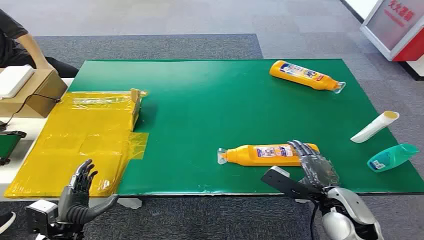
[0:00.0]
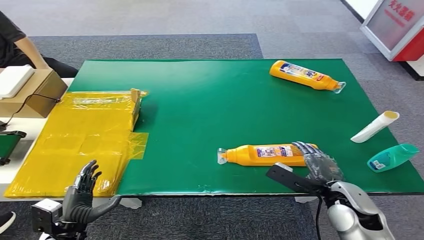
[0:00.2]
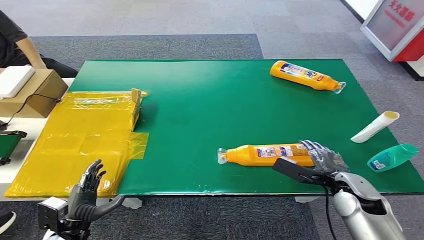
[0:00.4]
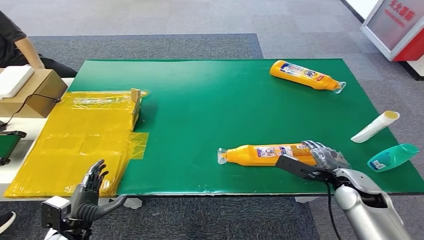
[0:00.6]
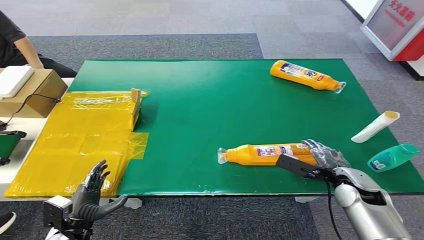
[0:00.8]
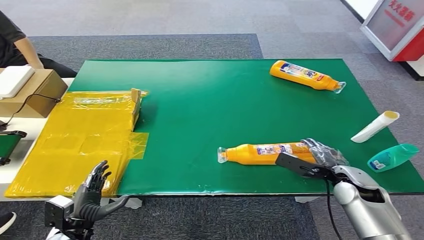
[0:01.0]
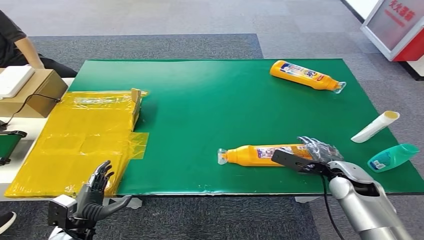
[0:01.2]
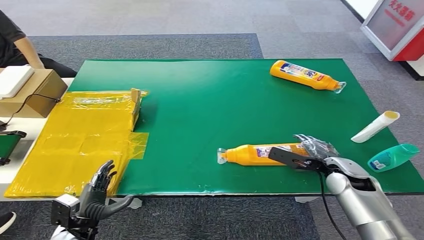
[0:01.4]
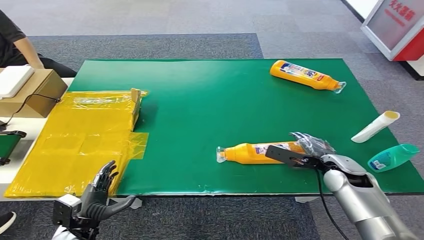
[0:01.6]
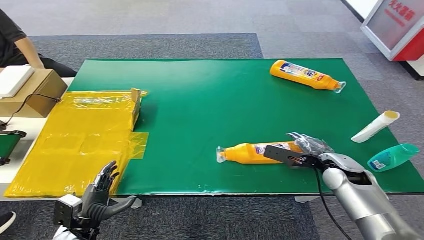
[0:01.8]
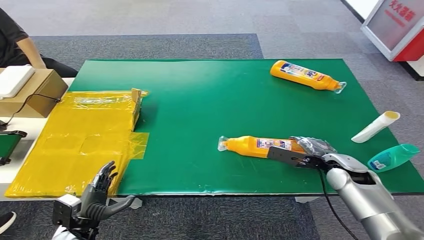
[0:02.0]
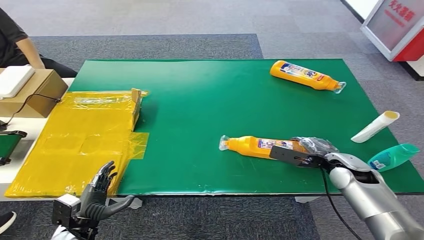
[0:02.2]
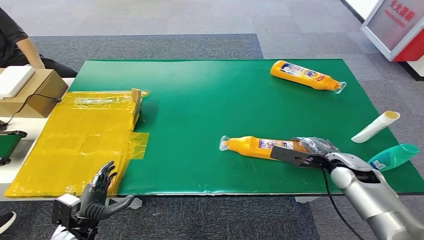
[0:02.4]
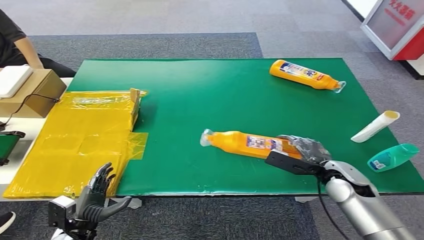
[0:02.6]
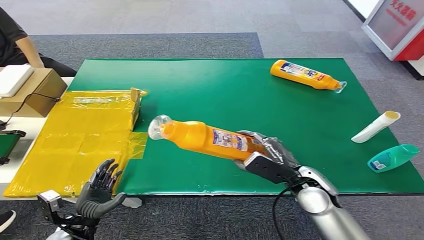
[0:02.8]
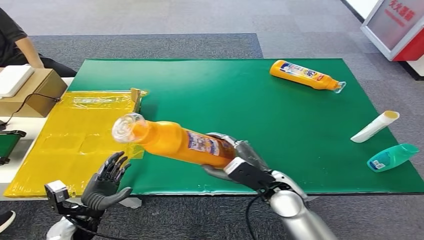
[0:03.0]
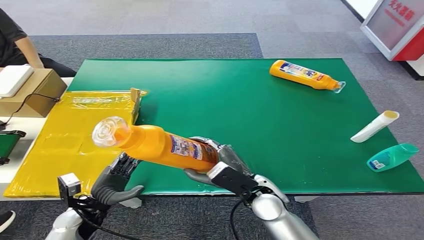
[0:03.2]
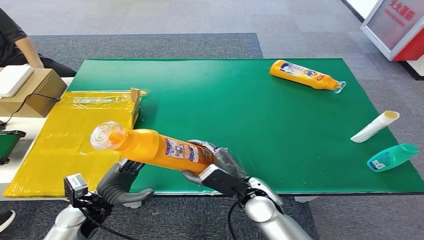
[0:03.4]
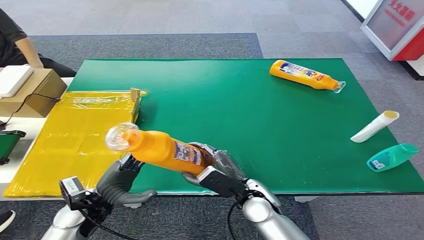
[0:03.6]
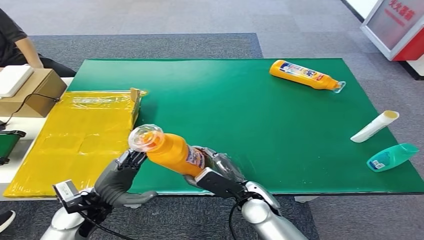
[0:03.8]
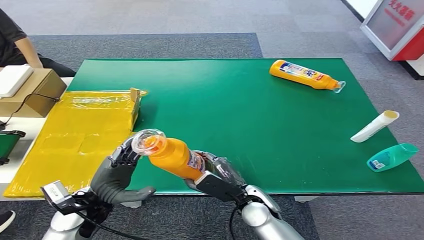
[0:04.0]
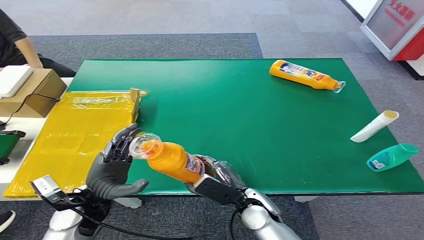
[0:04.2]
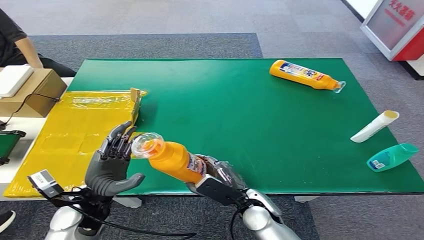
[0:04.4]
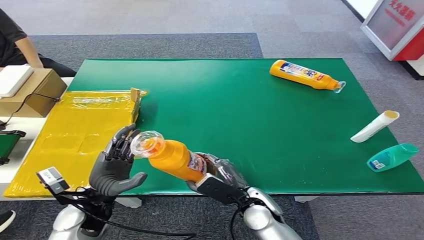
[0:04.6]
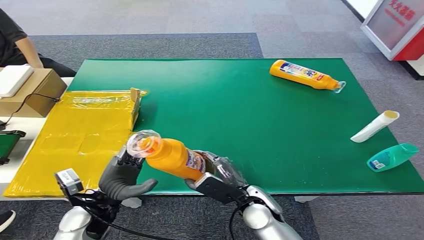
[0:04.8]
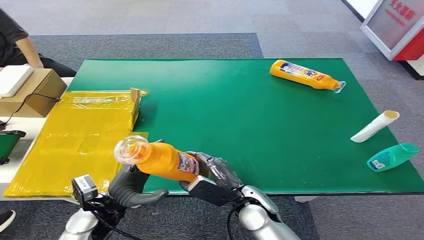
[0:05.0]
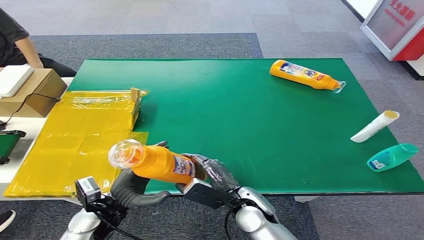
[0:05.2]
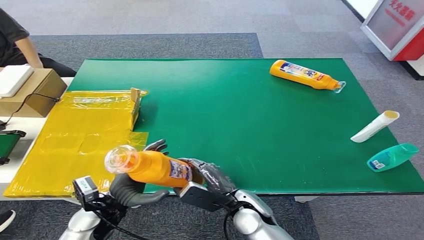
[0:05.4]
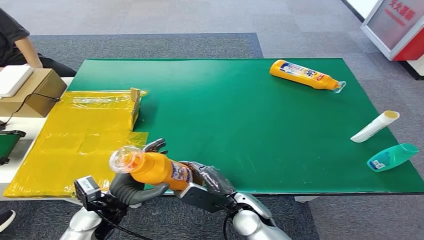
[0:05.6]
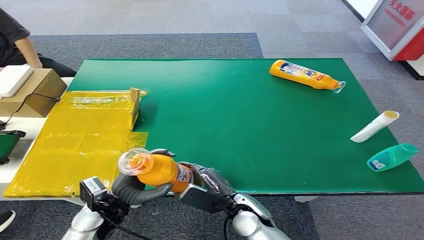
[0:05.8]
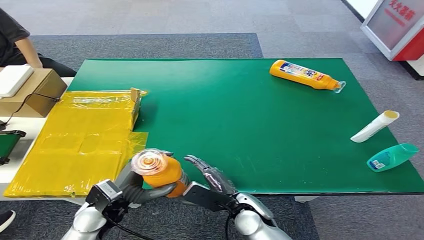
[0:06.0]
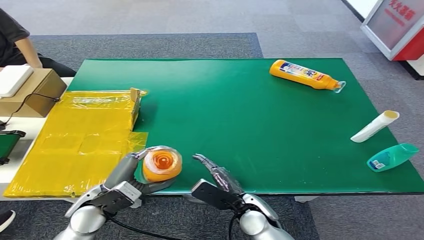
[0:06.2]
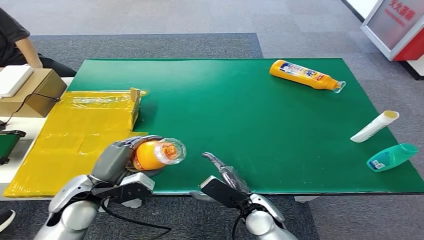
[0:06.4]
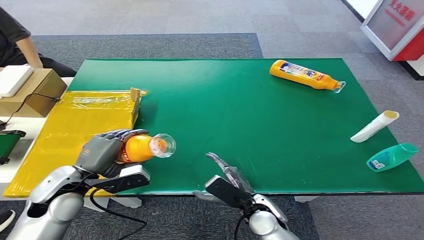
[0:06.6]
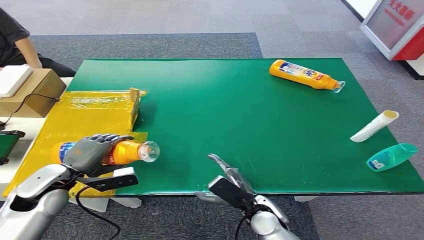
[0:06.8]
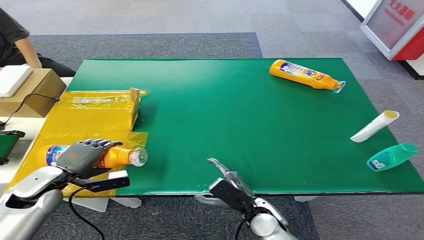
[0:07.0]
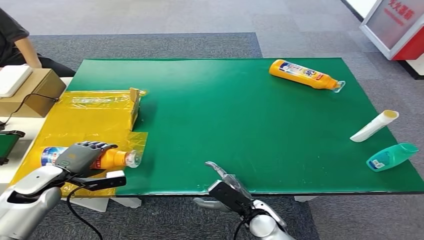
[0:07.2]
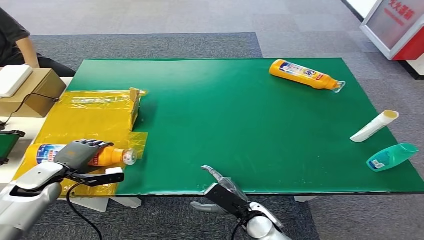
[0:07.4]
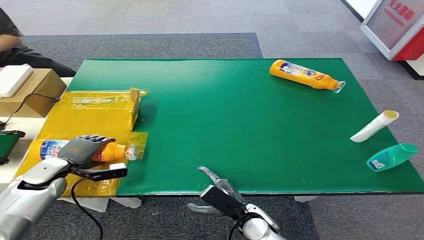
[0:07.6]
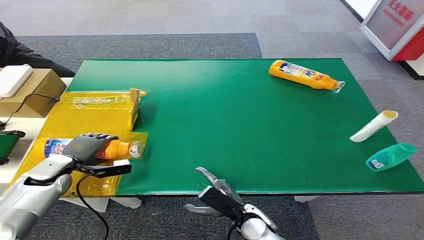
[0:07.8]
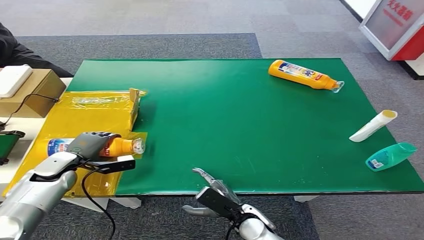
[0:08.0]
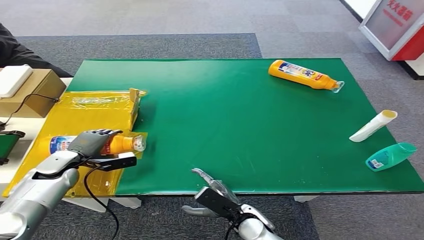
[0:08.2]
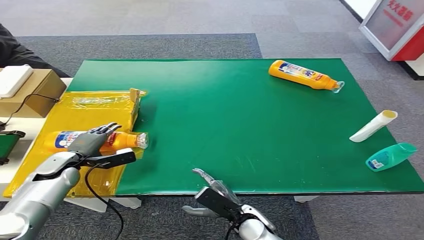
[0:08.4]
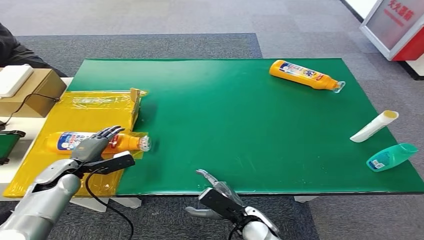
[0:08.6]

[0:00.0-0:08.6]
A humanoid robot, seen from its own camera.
Step, 0:00.0 to 0:02.6: Pick up the bottle from the table.
Step, 0:03.0 to 0:08.6: Turn the bottle to the front side.
0:01.4 to 0:02.8: The right hand goes about 10 cm to the left.
0:02.8 to 0:04.4: The left hand is displaced upward, to the right and forward by roughly 15 cm. Meanwhile the right hand heads to the left and downward, covering some 15 cm.
0:04.4 to 0:05.8: The hands make only small movements.
0:05.8 to 0:07.2: The right hand shifts by roughly 5 cm. The left hand heads to the left and forward, covering about 15 cm.
